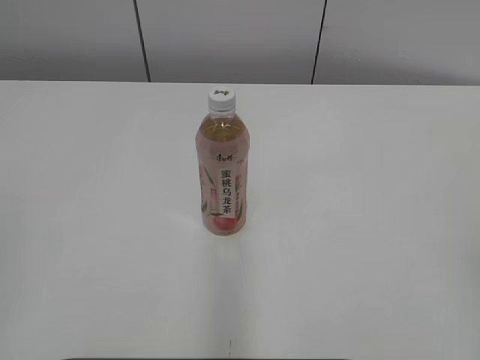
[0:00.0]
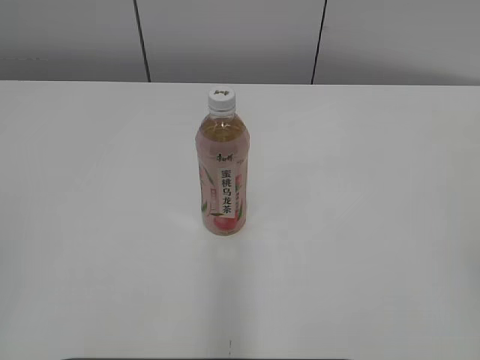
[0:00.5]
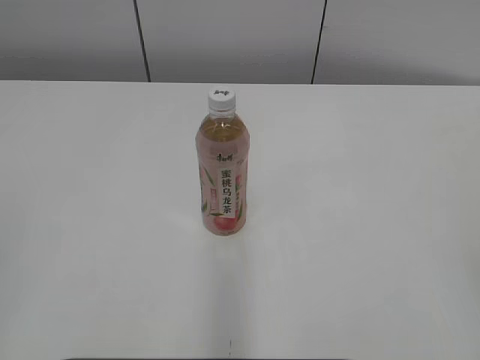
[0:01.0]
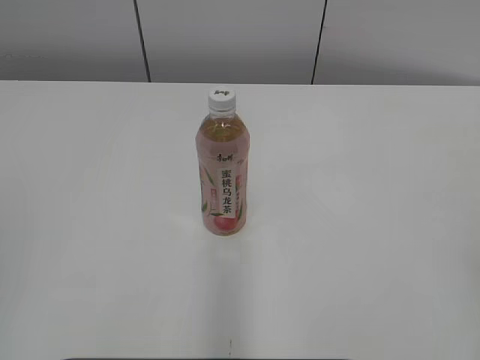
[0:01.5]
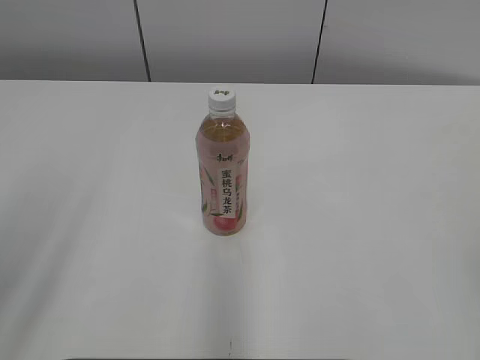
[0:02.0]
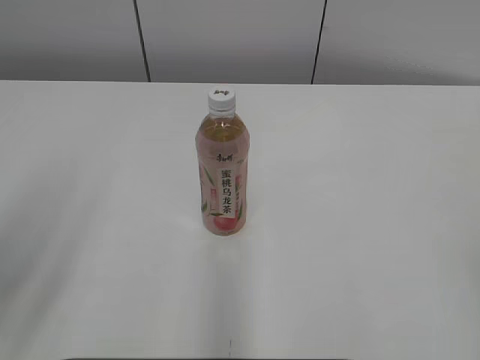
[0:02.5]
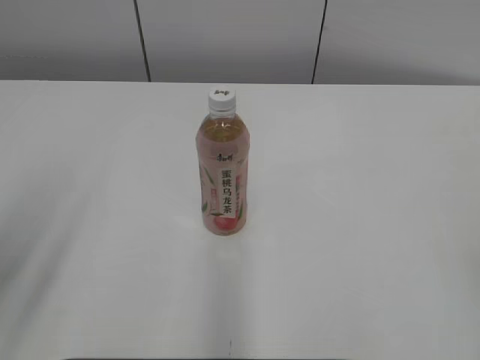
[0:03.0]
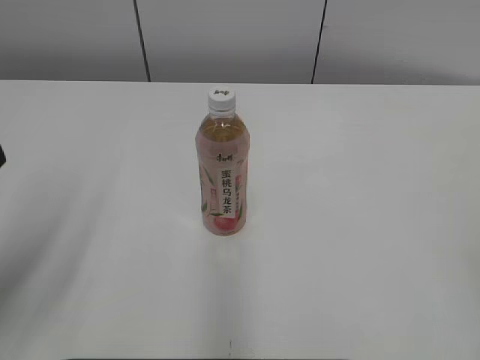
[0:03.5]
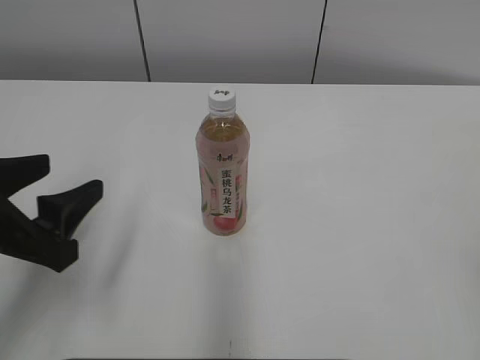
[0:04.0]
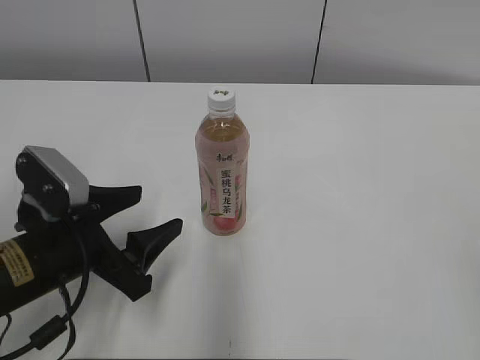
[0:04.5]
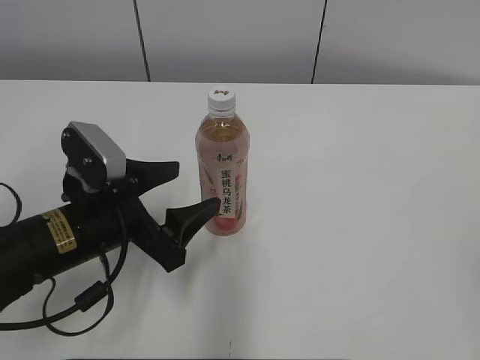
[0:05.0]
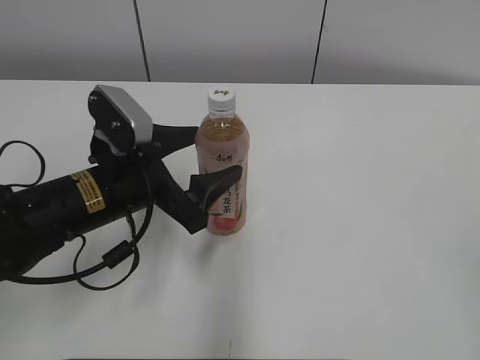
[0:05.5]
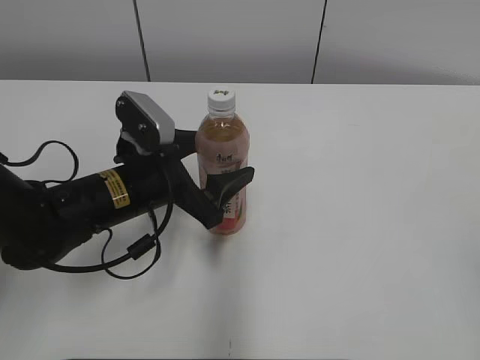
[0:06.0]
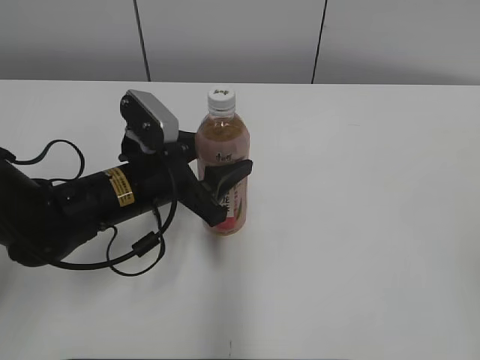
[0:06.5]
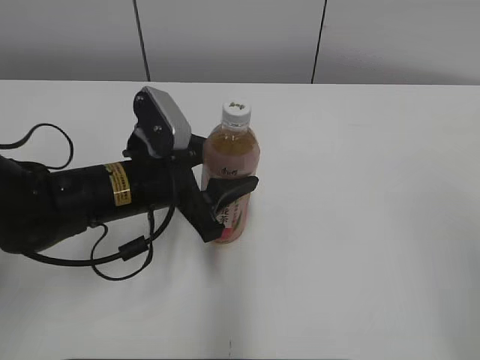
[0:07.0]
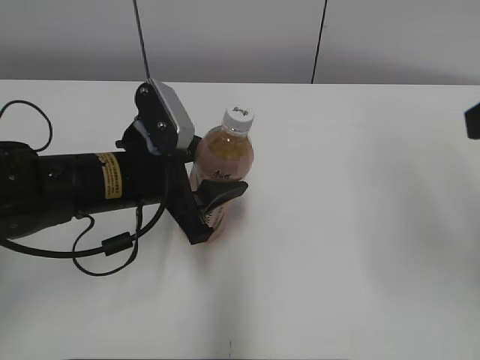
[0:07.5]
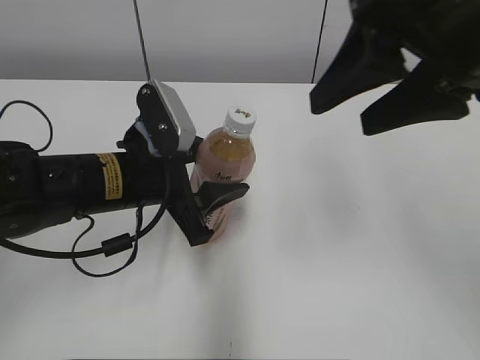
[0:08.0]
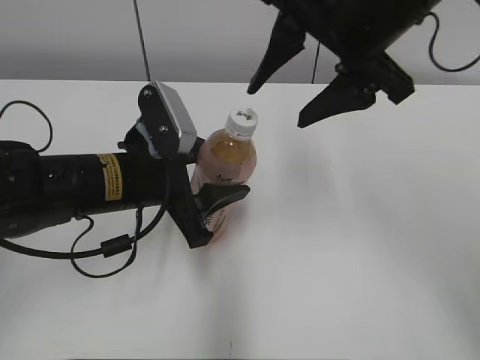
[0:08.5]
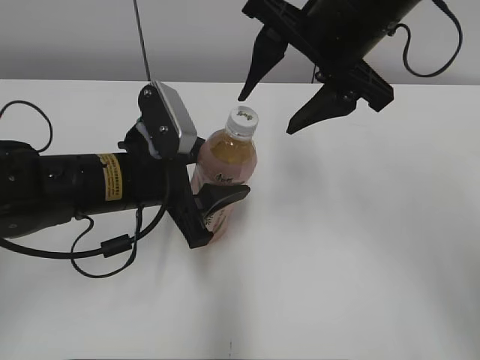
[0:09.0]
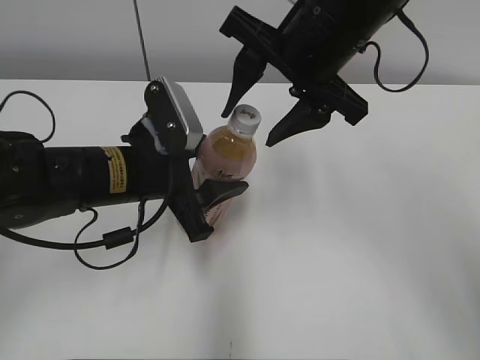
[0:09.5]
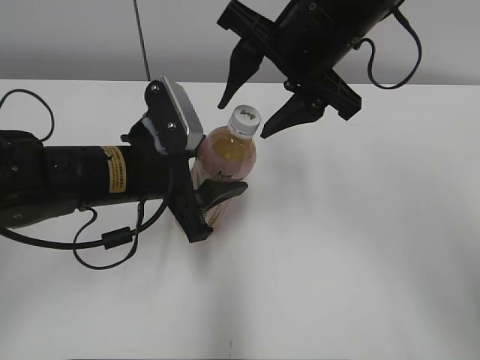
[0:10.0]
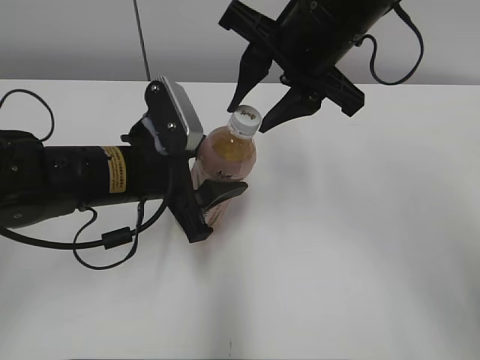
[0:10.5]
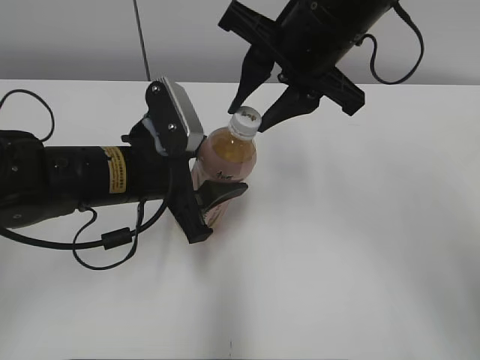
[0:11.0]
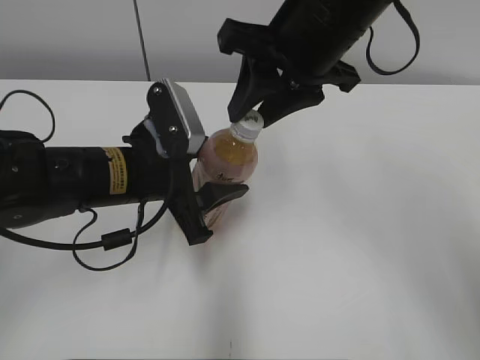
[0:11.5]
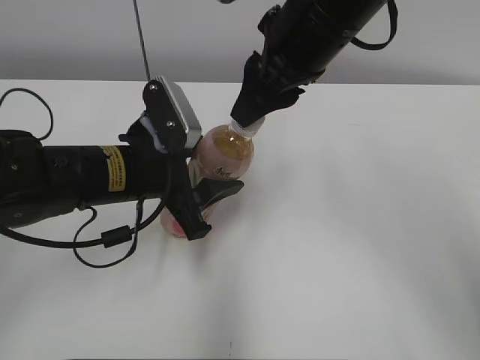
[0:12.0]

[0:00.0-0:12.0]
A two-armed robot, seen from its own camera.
Step, 0:00.0 to 0:06.5: Grab the Peach Oolong Tea with the left hand.
0:02.0 to 0:04.0: The left gripper heads downward and forward, covering approximately 15 cm, and opens up.
0:04.0 to 0:06.0: The left gripper goes approximately 20 cm forward, to the right and downward.
0:06.0 to 0:08.0: The left gripper closes its fingers. Meanwhile the right gripper travels forward and to the left by roughly 30 cm.
0:08.0 to 0:10.0: The right gripper shifts approximately 15 cm to the left, forward and downward.
0:10.0 to 0:12.0: The right gripper closes its fingers.

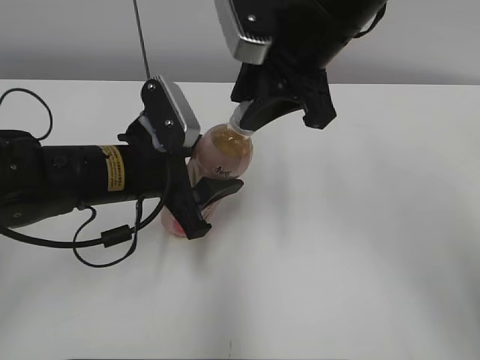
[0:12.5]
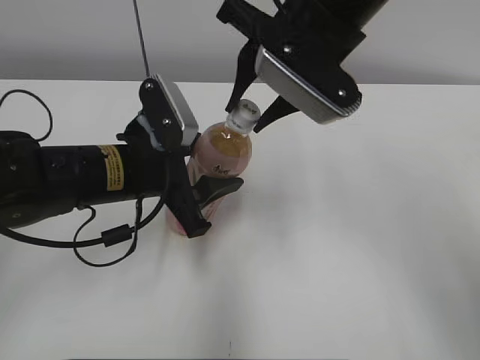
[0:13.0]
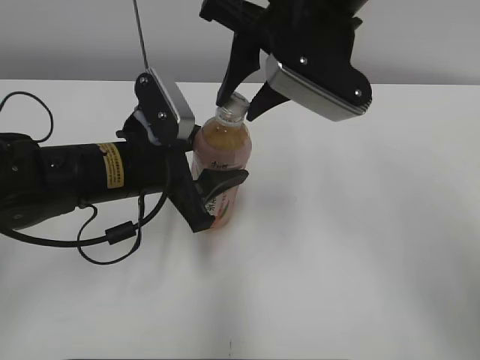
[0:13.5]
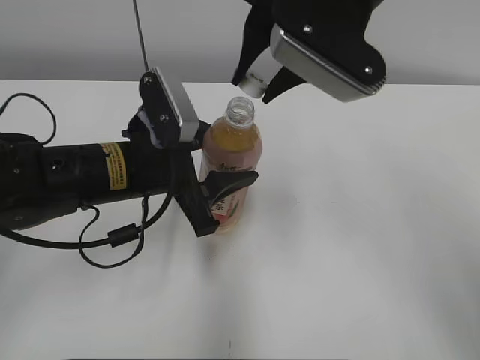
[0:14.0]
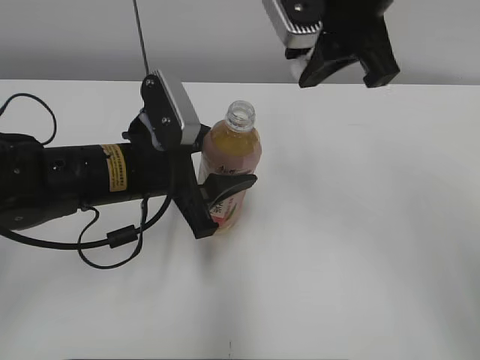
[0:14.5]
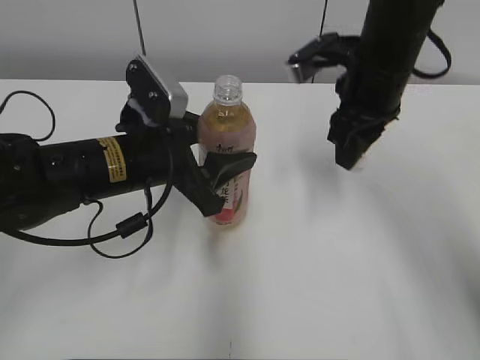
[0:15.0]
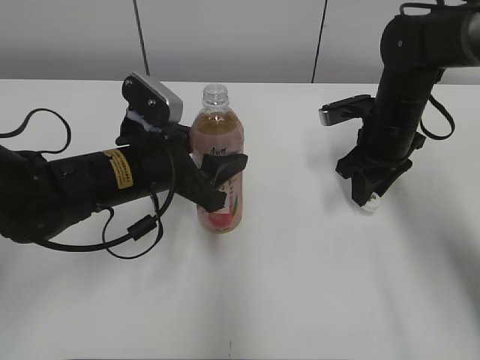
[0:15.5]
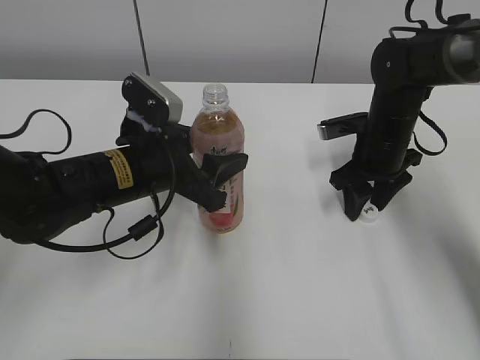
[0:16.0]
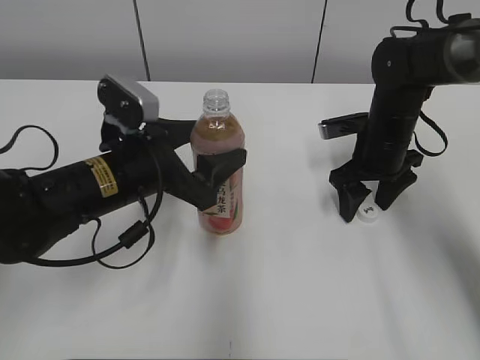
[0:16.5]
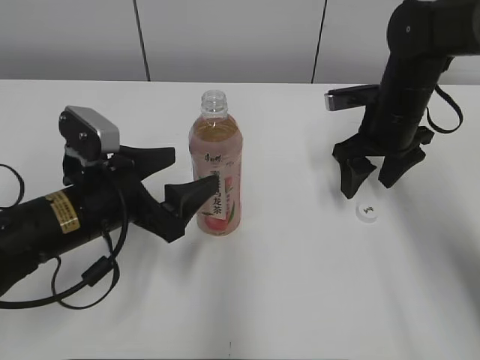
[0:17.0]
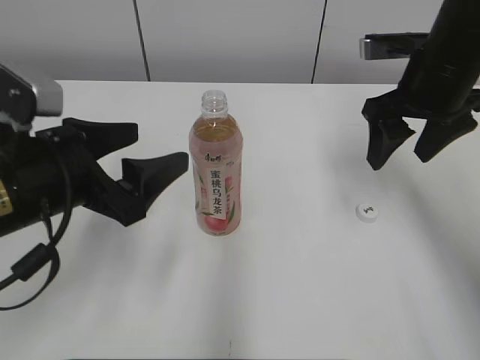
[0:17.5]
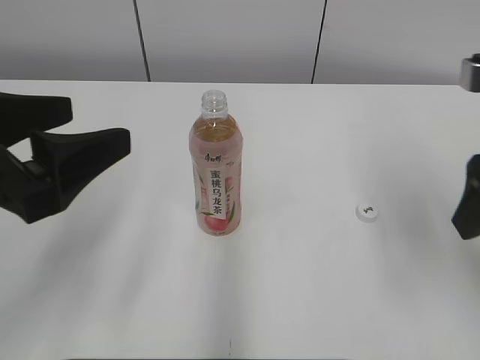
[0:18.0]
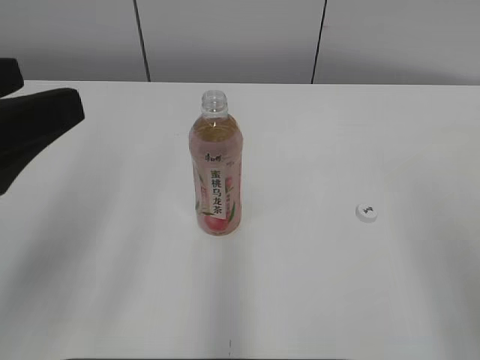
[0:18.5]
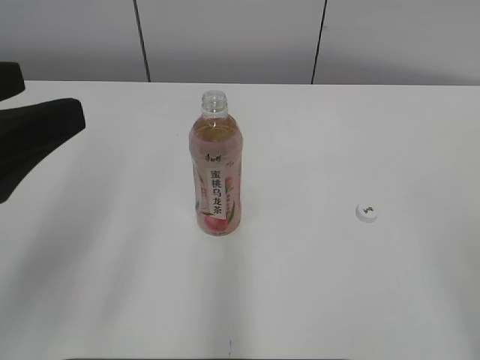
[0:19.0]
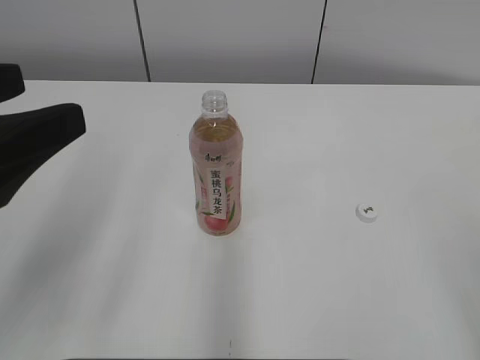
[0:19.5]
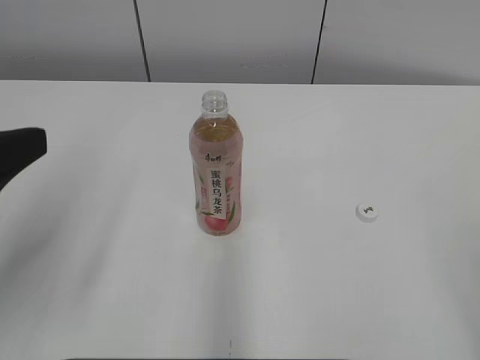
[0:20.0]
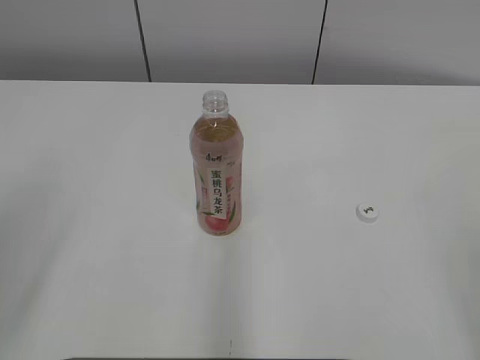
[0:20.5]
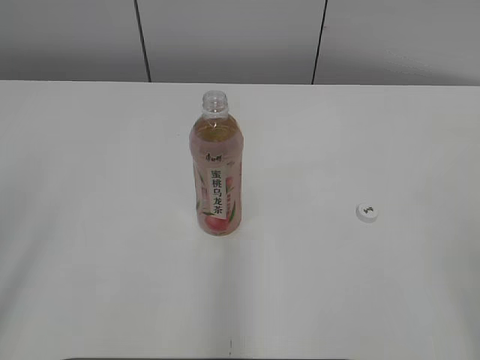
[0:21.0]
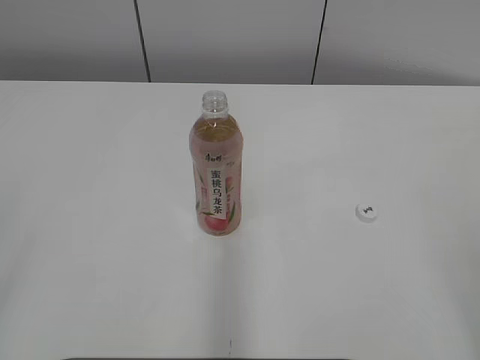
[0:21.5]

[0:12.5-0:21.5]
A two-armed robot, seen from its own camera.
Step, 0:14.0 to 0:15.5: Place the bottle cap on the right.
Step, 0:16.0 to 0:16.5: Place the Peach Oolong Tea with the left hand.
0:14.5 to 0:17.0: The right gripper is displaced downward, to the right and forward by about 25 cm, and opens up, while the left gripper shifts by some 5 cm, and opens its fingers.
0:17.0 to 0:19.5: The right gripper is displaced backward by about 40 cm. Meanwhile the left gripper goes about 20 cm upward, backward and to the left.
0:19.5 to 0:21.5: The left gripper is displaced backward and to the left by approximately 15 cm.

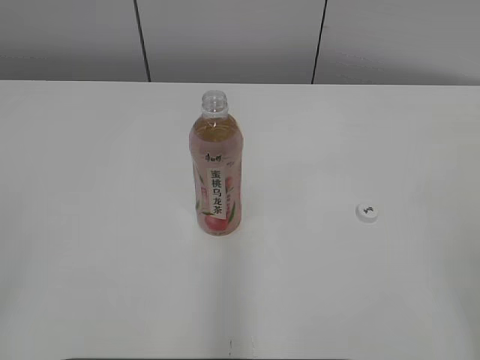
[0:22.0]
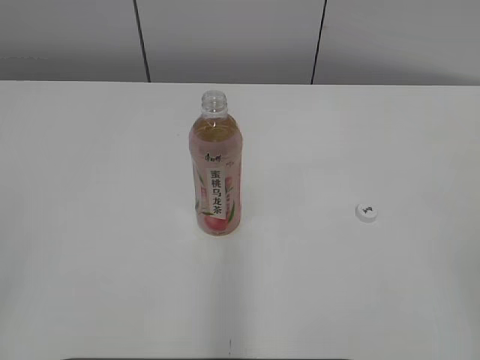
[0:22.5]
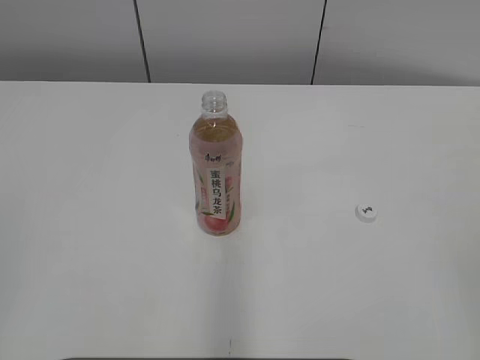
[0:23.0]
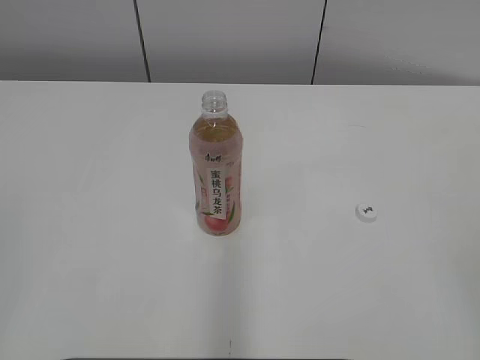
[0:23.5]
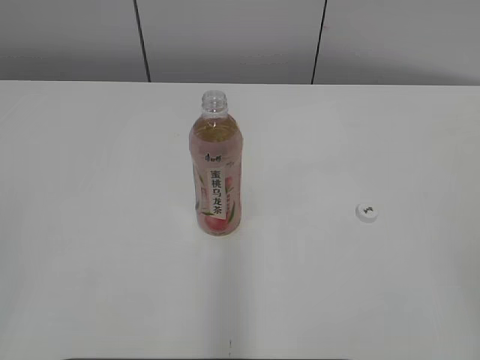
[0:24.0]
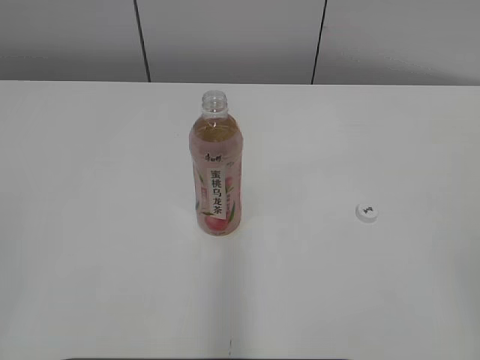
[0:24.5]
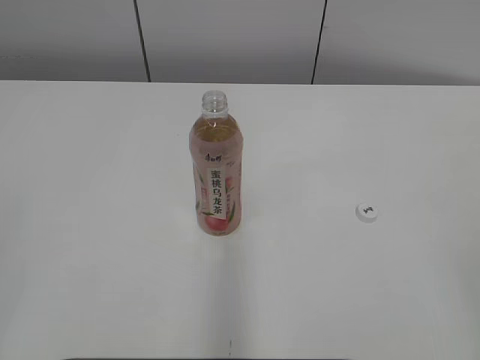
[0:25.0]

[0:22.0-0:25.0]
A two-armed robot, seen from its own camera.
0:23.5 to 0:25.0: The two grippers keep their place.
